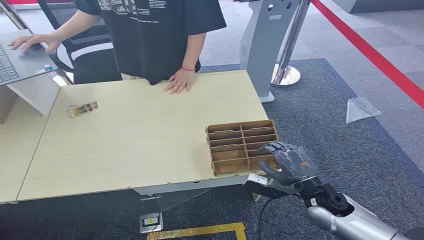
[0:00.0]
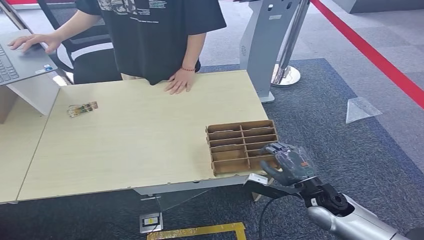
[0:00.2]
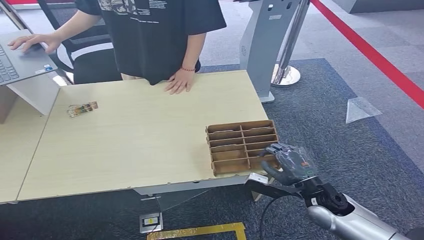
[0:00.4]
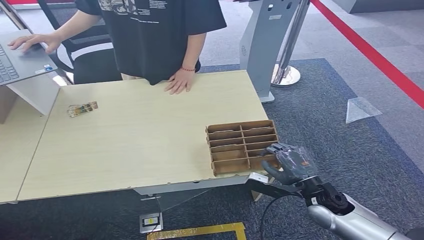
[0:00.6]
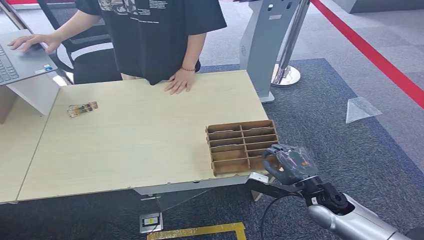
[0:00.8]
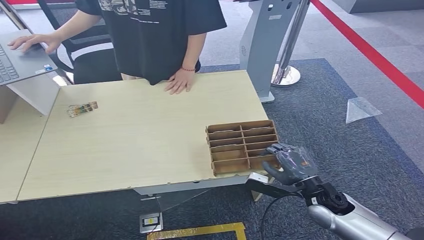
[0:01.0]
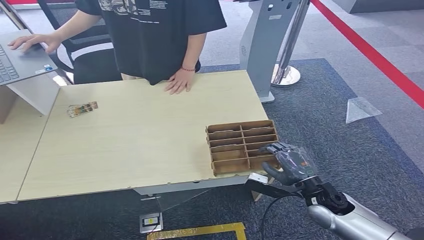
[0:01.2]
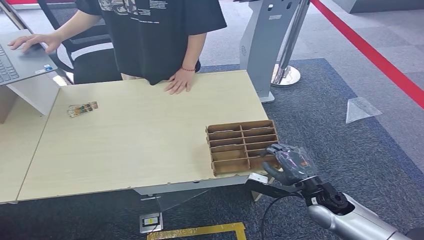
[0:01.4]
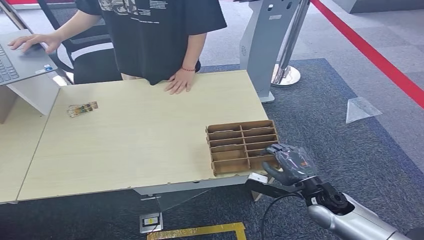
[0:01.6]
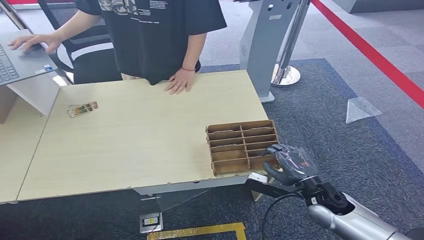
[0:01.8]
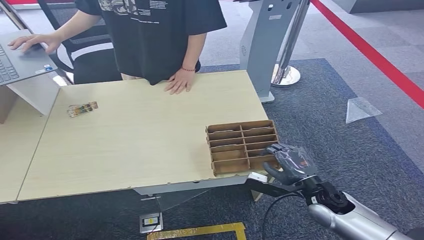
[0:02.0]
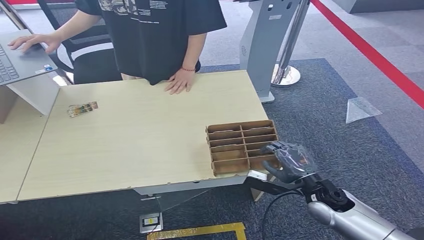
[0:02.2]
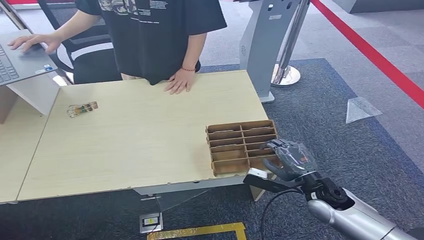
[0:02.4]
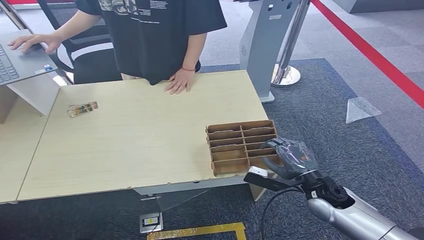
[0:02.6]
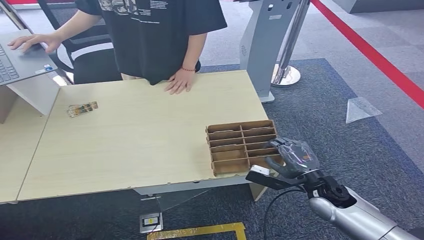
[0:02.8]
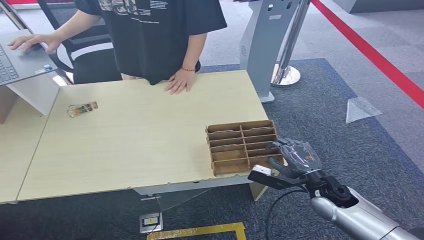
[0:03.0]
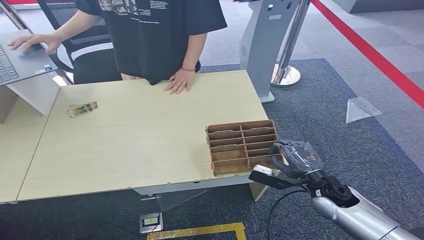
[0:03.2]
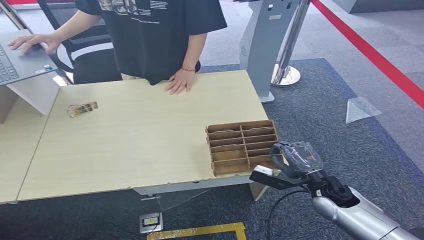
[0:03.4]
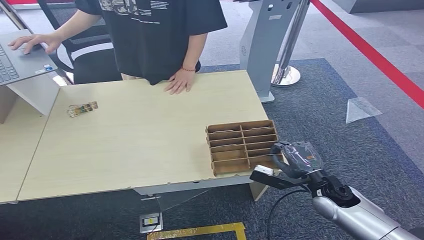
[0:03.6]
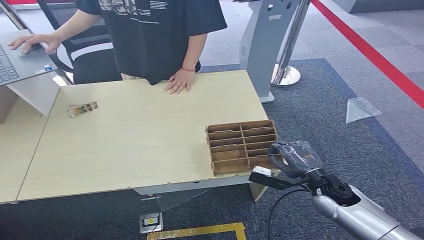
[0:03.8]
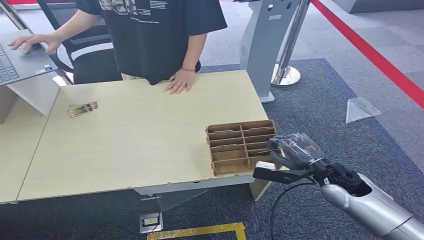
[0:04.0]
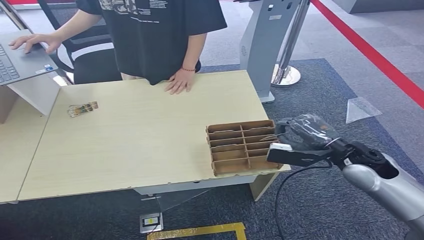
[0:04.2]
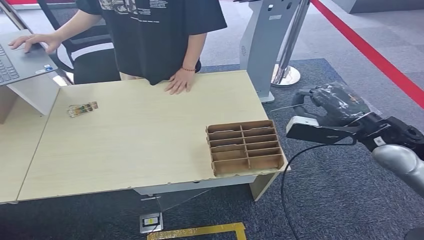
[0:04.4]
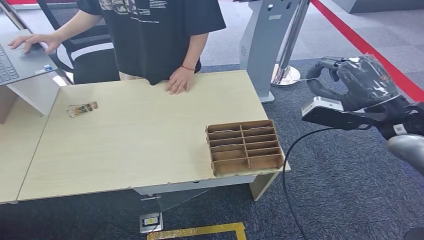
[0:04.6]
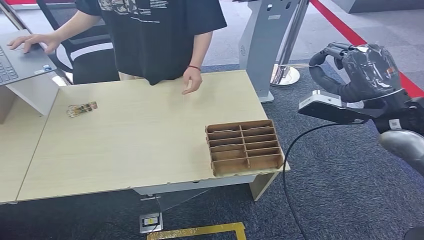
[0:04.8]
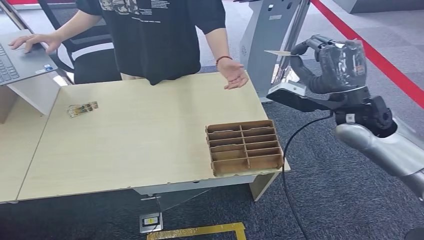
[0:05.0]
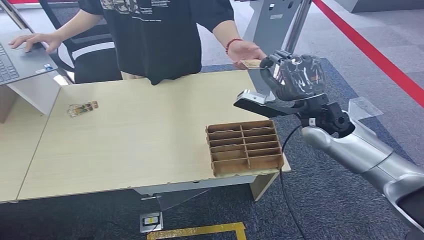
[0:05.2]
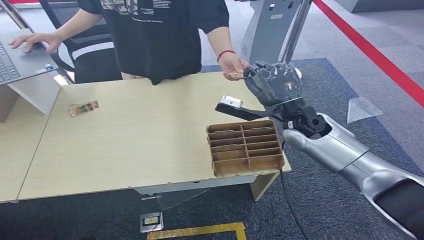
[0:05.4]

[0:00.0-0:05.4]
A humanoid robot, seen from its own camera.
Step, 0:00.0 to 0:04.0: Pick up the key card from the card box.
Step, 0:04.2 to 0:05.4: Hand the key card to the target.
0:01.4 to 0:02.8: There are only small adjustments of the hands.
0:02.8 to 0:04.0: The hands stay close to where they were, moving slightly.
0:04.0 to 0:05.4: The right hand goes about 20 cm upward, forward and to the left.
